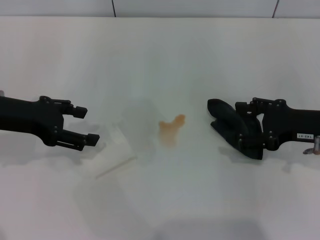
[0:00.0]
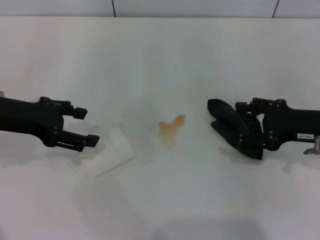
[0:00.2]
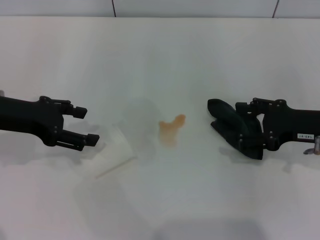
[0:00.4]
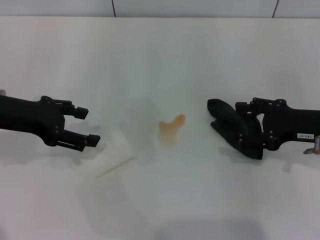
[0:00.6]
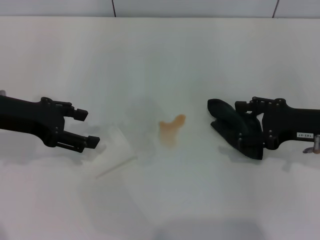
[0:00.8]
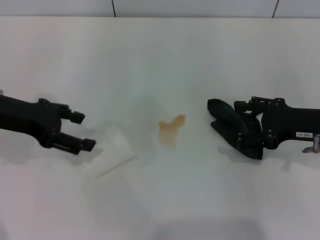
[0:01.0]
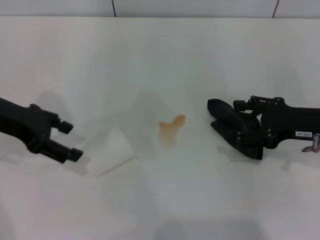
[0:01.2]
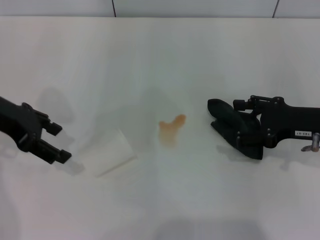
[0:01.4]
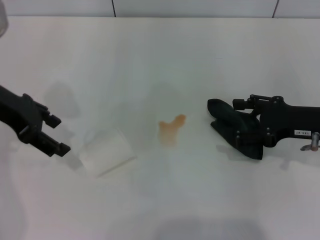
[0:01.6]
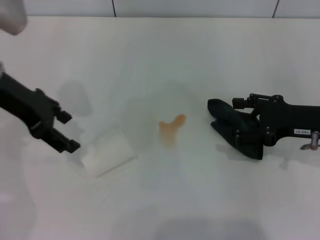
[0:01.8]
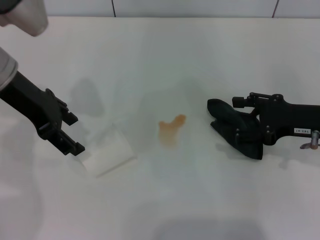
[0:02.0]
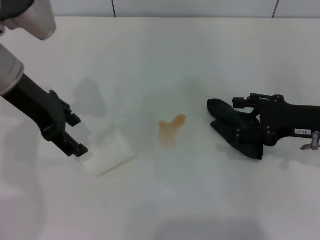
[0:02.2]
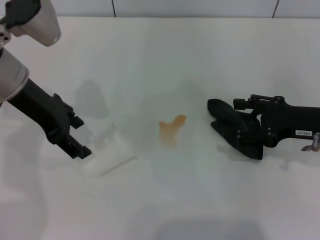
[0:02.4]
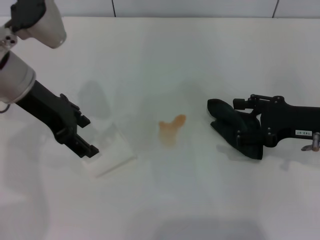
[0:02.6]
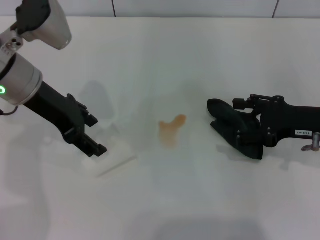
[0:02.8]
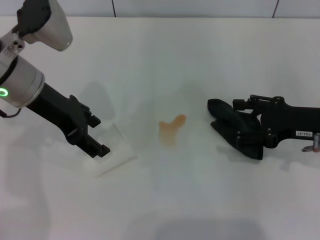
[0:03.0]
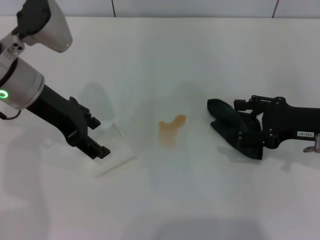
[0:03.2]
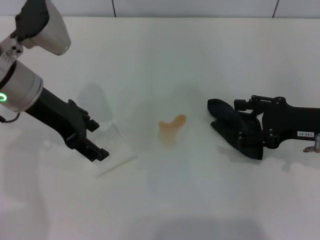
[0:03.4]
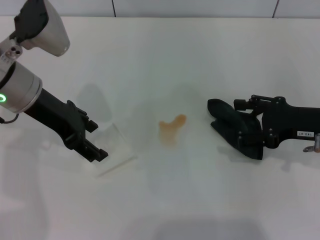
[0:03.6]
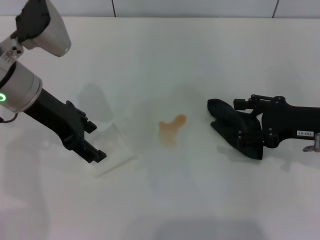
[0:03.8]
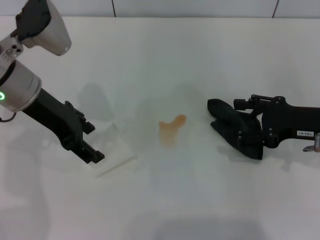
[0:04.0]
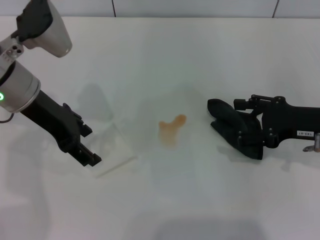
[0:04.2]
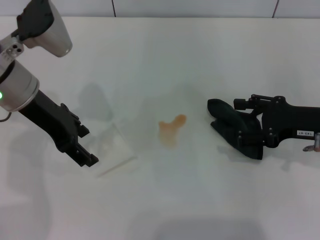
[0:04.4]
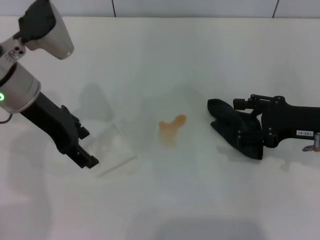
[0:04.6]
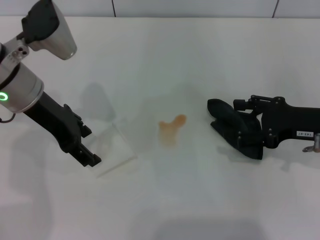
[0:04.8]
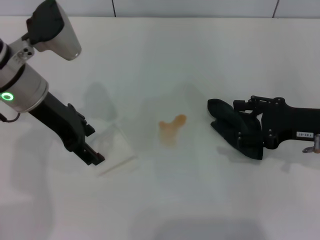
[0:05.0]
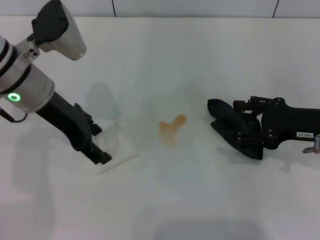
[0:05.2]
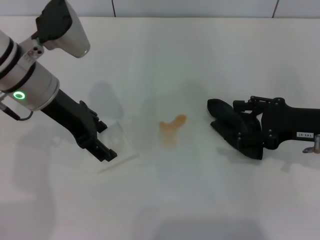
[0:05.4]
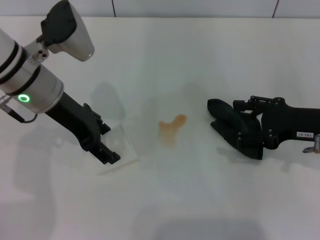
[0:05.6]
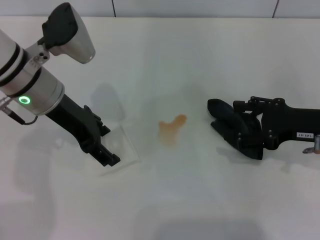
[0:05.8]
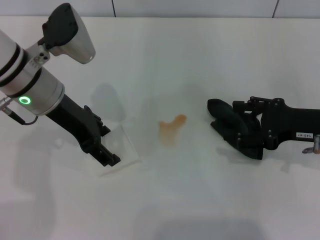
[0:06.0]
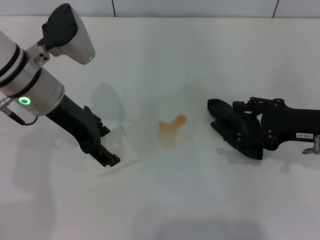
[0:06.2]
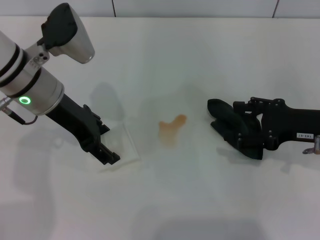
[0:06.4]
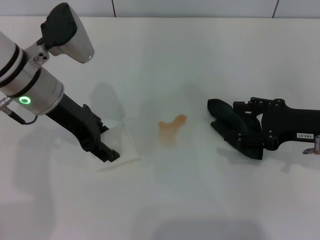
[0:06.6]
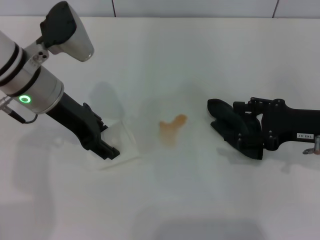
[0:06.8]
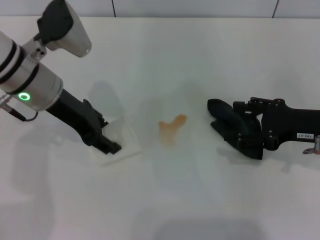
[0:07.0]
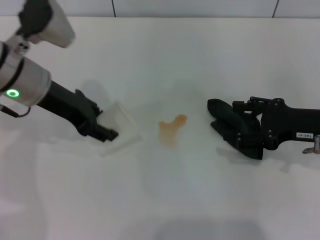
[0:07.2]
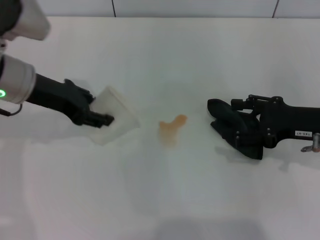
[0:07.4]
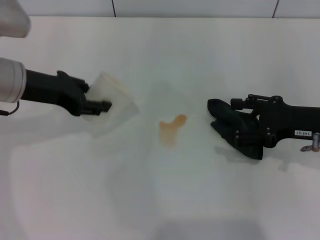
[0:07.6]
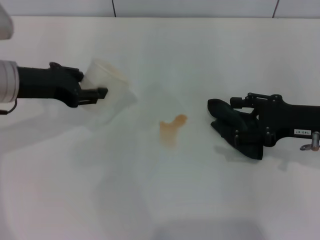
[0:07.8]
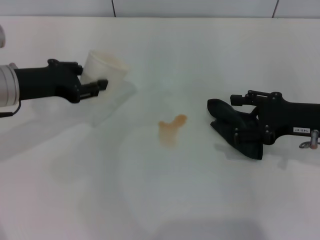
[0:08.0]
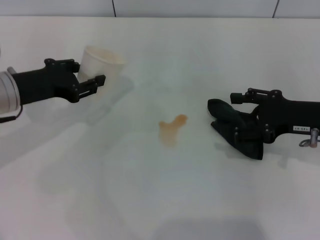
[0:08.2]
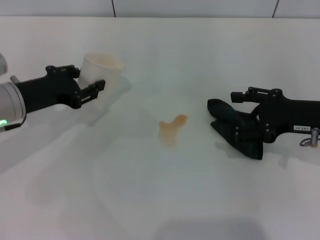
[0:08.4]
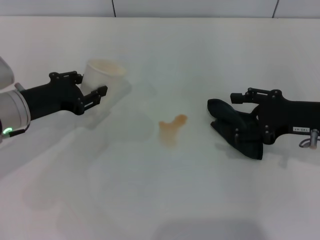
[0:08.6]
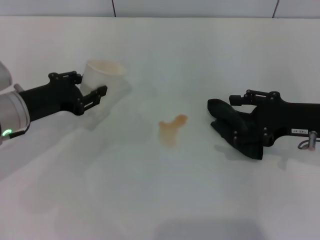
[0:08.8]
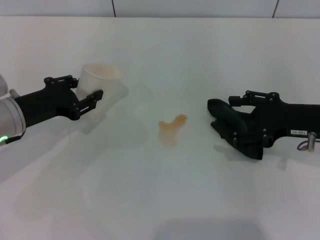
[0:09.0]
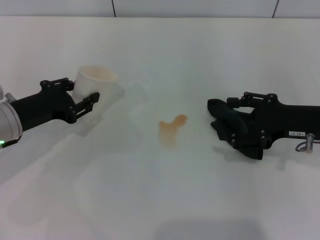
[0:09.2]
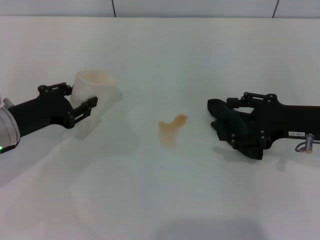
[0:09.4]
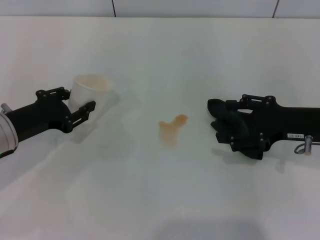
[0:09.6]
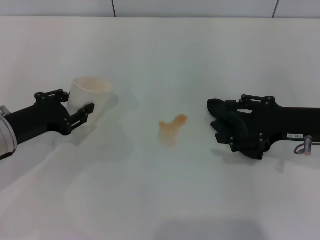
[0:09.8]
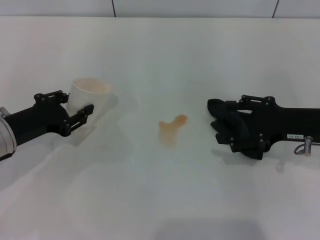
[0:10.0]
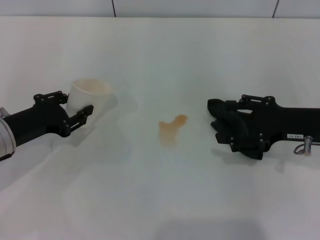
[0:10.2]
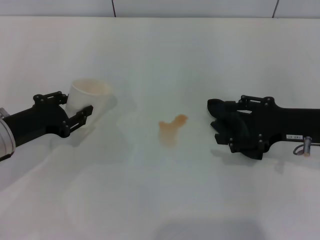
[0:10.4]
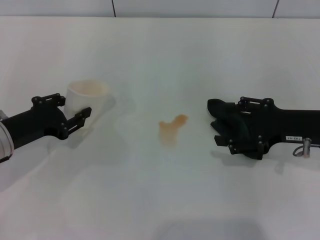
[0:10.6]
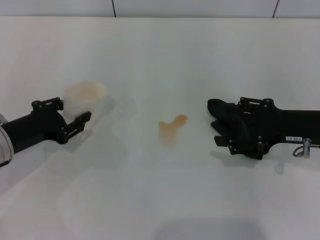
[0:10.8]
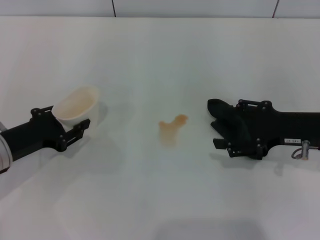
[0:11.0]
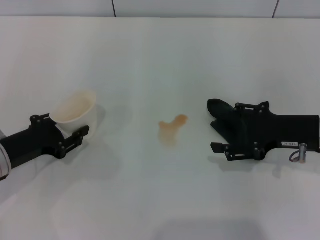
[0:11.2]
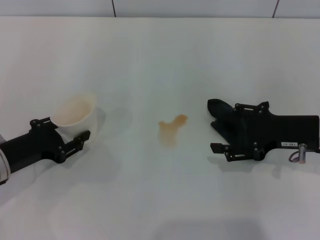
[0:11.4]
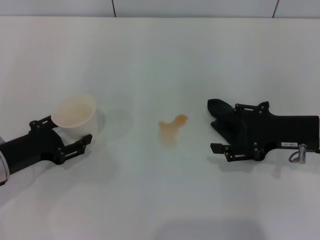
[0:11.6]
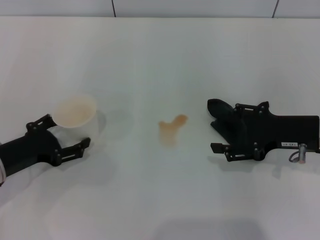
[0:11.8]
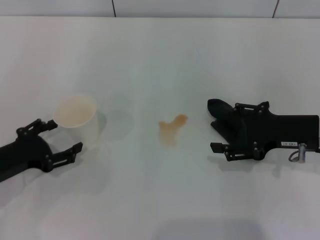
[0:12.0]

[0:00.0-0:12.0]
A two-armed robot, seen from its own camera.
Step, 0:00.0 to 0:06.2: Grasp the paper cup with the left gripper.
0:00.0 to 0:01.6: The left gripper moves about 5 cm.
0:01.6 to 0:03.0: The left gripper travels to the right by about 5 cm.
0:03.0 to 0:06.0: The grippers stay close to where they were, moving slightly.
0:06.0 to 0:07.6: The left gripper is displaced to the left by about 5 cm, and closes.
0:07.6 to 0:09.0: The left gripper is displaced downward by approximately 10 cm.
0:09.0 to 0:10.4: The grippers make only small movements.
0:10.4 to 0:12.0: The left gripper ends up approximately 5 cm from where it was, and opens.

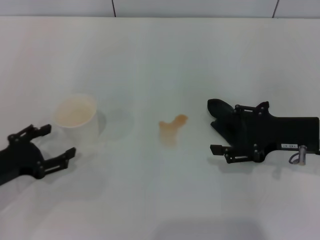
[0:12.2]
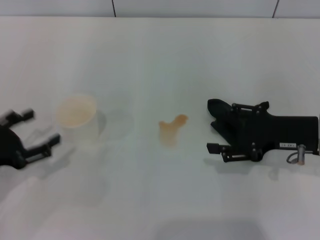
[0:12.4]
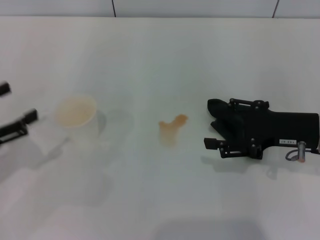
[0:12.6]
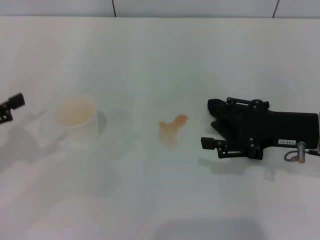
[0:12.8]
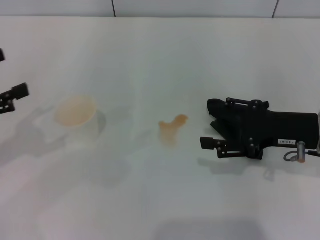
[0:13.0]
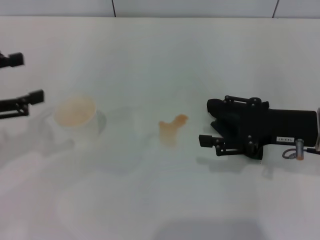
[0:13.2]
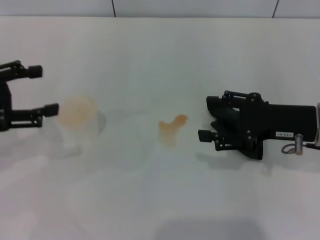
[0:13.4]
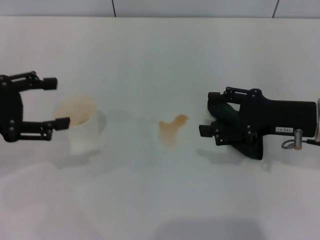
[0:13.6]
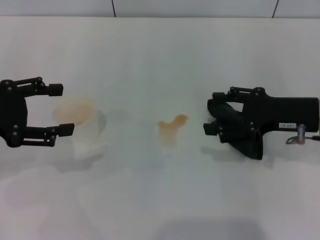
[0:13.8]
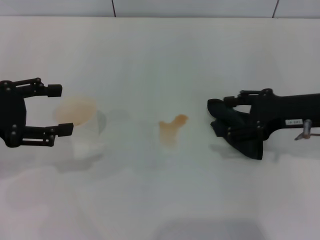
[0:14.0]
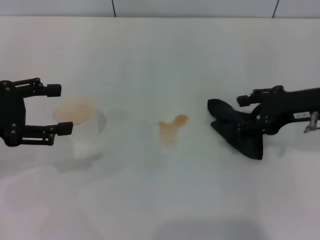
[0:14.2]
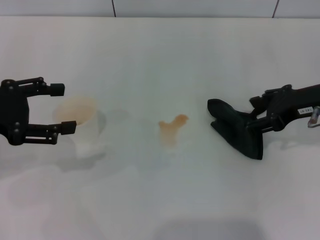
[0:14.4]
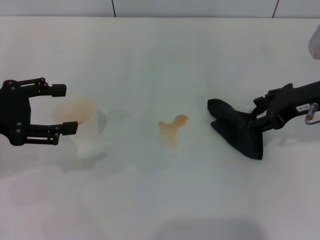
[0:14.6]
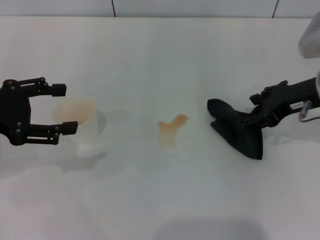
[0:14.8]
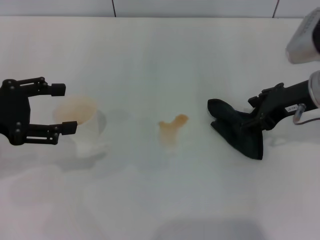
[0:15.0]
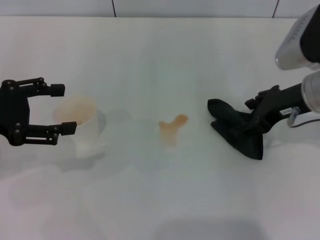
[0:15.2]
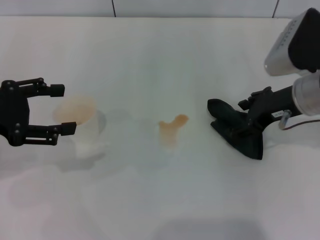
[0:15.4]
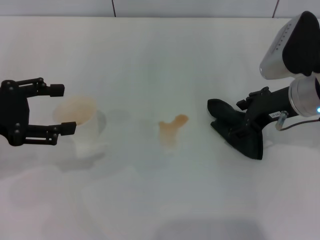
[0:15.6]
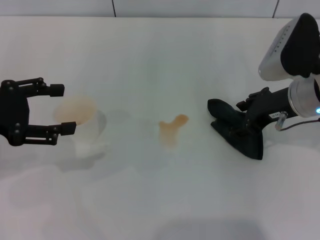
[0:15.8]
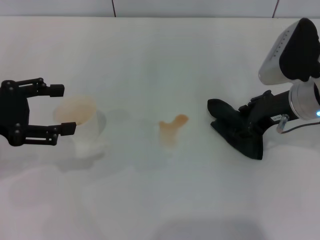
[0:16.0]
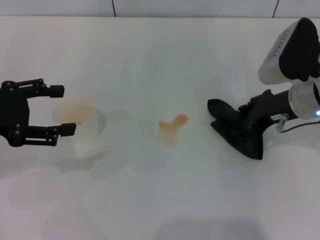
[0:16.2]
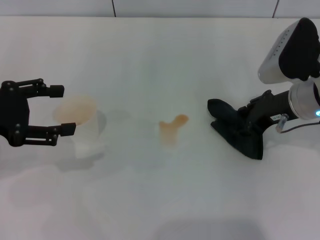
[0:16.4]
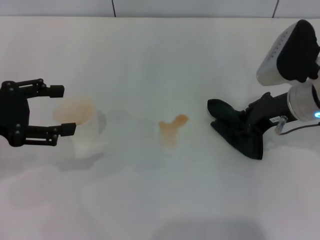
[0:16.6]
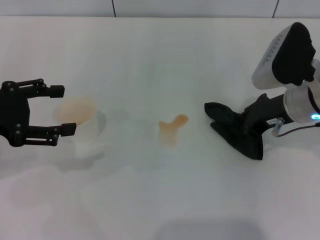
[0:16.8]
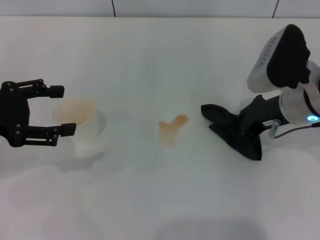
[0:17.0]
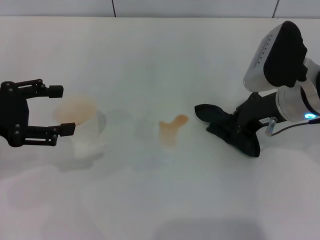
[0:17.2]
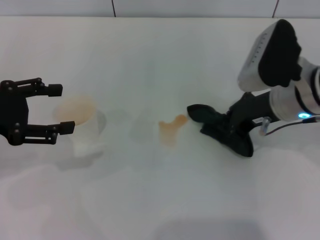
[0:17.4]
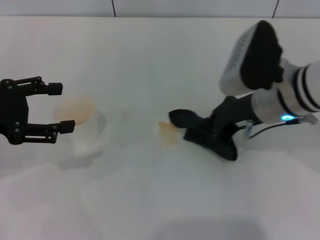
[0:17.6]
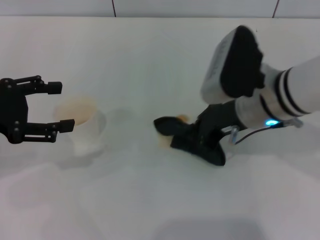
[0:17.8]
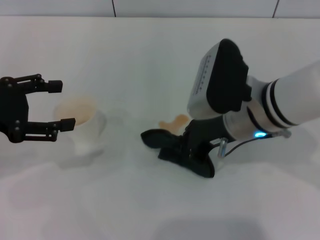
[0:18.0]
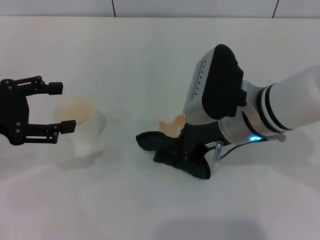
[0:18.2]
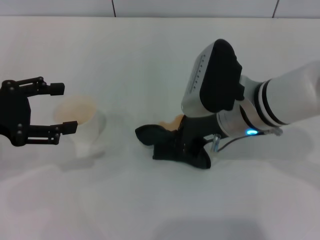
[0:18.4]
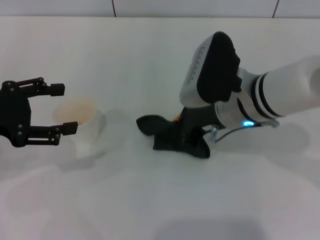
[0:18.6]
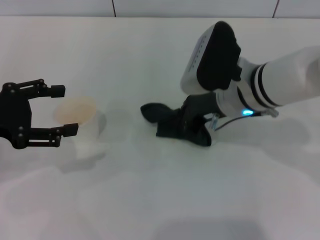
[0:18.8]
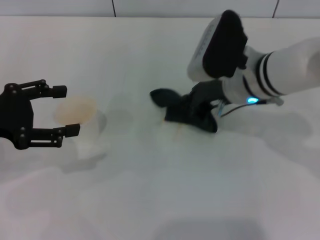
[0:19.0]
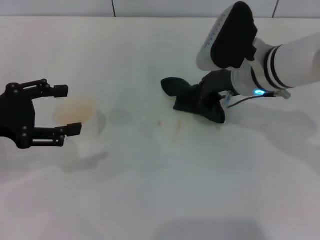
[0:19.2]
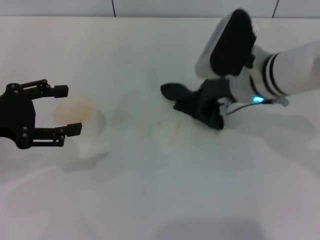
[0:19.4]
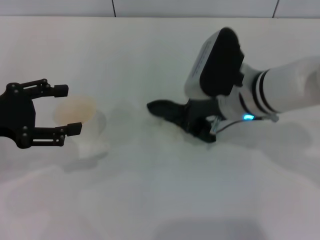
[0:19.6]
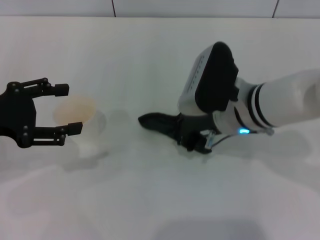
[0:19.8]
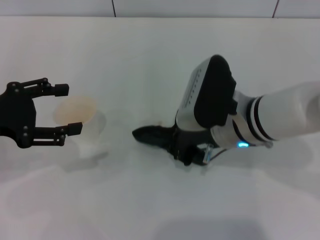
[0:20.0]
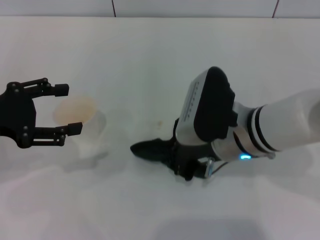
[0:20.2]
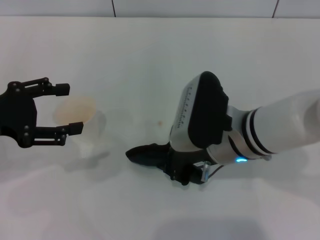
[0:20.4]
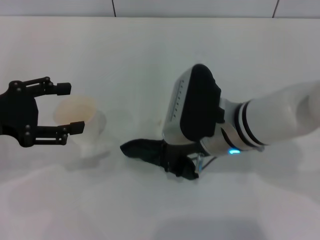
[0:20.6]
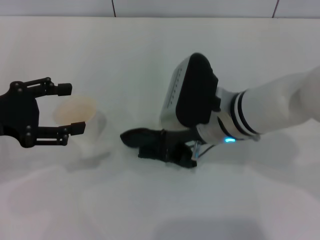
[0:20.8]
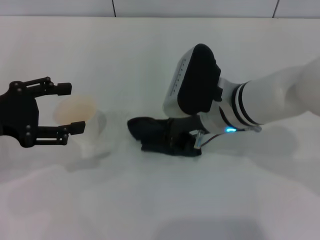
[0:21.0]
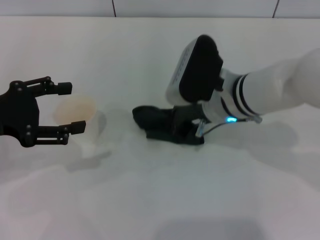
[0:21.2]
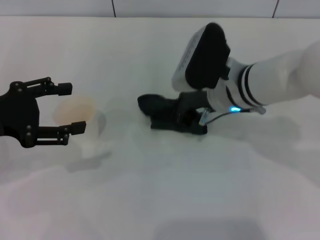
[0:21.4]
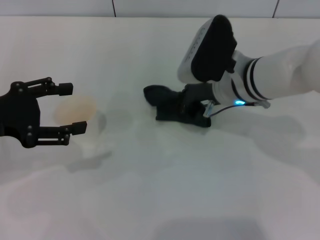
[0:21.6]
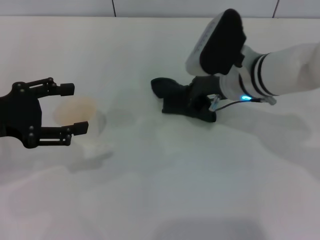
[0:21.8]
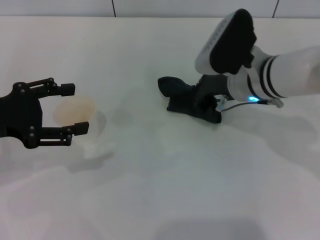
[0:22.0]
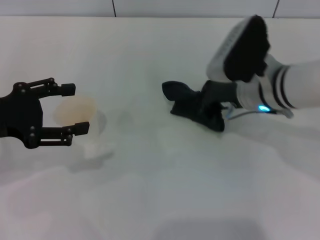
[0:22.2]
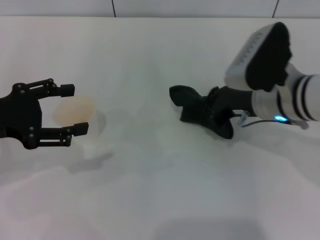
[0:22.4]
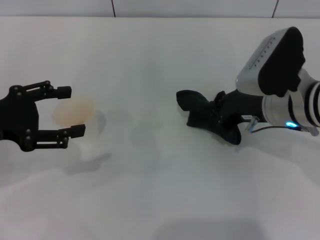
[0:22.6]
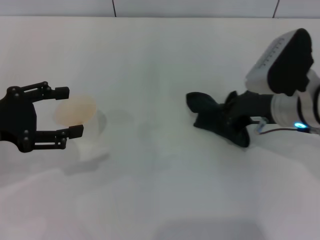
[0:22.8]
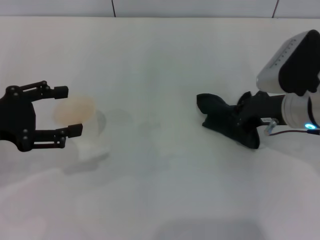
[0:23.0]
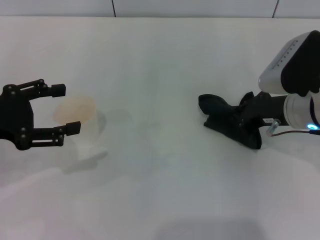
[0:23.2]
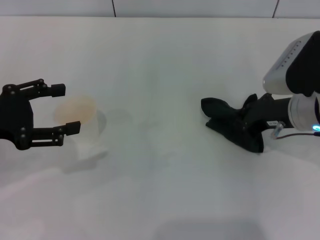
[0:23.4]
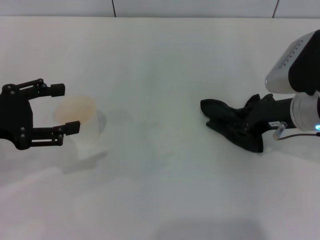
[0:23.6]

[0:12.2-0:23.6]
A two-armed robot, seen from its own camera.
Step, 0:12.4 to 0:17.2: Grasp the rag with the right gripper.
Step, 0:17.4 to 0:22.0: Wipe the stains off the table with the right gripper.
0:12.2 to 0:13.6: The left gripper heads upward, covering approximately 10 cm.
0:13.6 to 0:15.0: The right gripper shifts by some 5 cm.
0:15.0 to 0:16.4: The grippers stay close to where they were, moving slightly.
0:16.4 to 0:17.8: The right gripper heads to the left, covering approximately 10 cm, and closes.
0:17.8 to 0:19.4: The right gripper shifts by roughly 5 cm.
0:19.4 to 0:20.8: The right gripper is displaced backward and to the left by roughly 10 cm.
0:20.8 to 0:22.2: The right gripper heads to the right, covering about 5 cm.
0:22.2 to 0:23.6: The right gripper moves to the right, about 5 cm.
